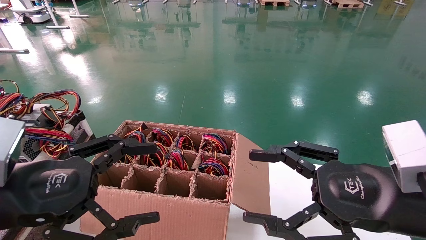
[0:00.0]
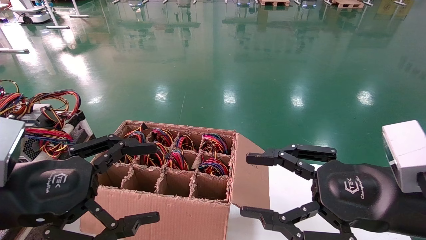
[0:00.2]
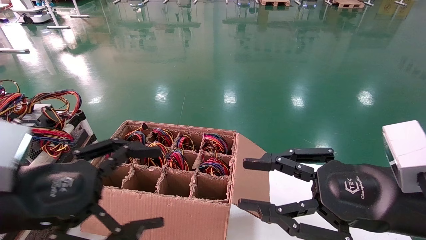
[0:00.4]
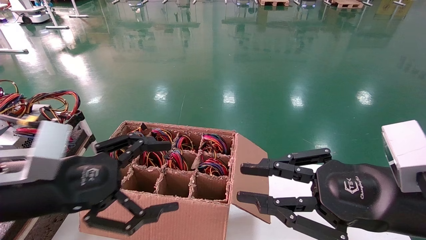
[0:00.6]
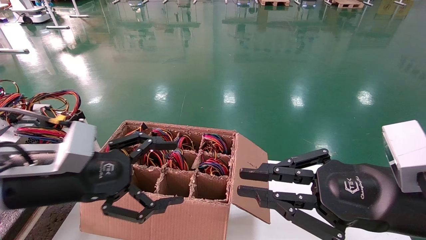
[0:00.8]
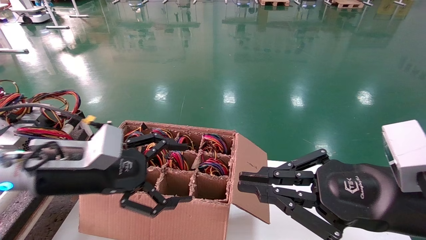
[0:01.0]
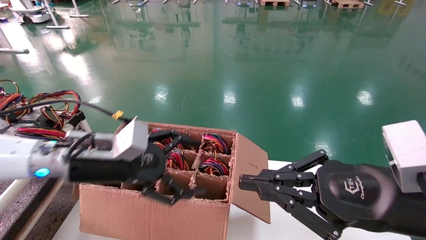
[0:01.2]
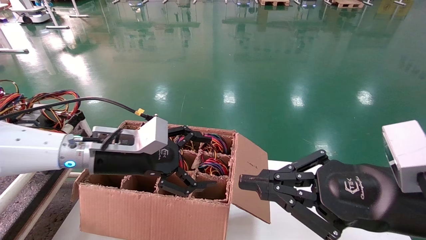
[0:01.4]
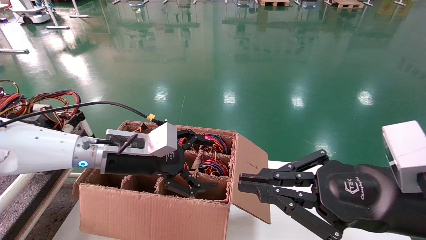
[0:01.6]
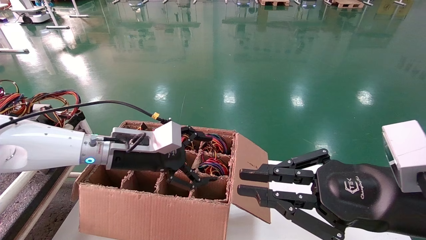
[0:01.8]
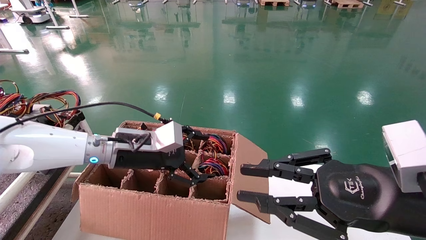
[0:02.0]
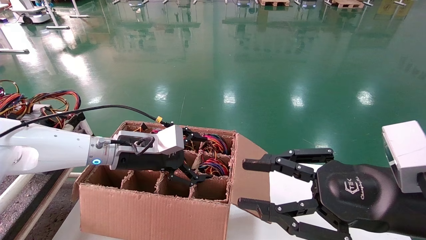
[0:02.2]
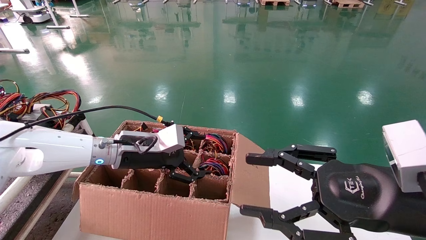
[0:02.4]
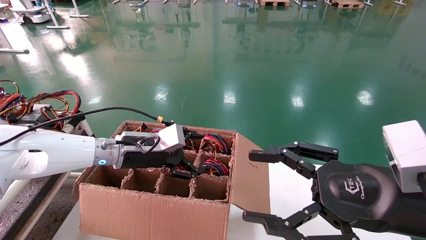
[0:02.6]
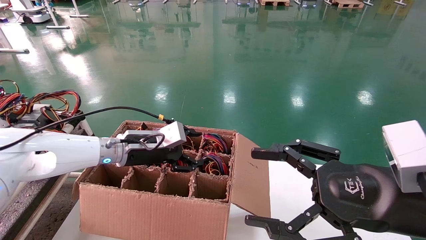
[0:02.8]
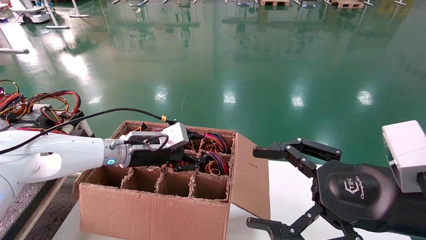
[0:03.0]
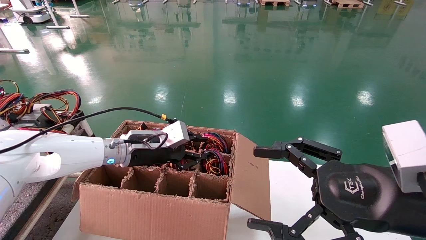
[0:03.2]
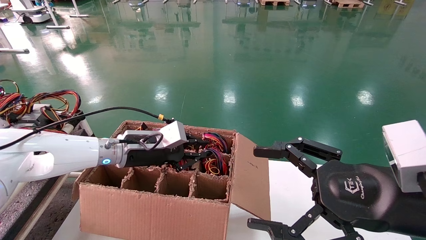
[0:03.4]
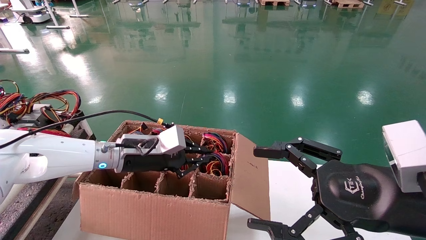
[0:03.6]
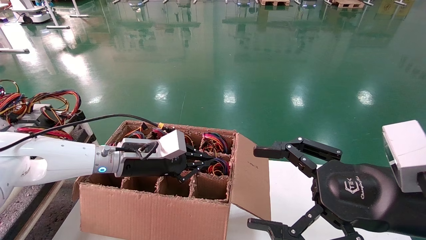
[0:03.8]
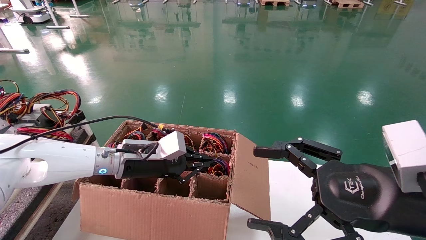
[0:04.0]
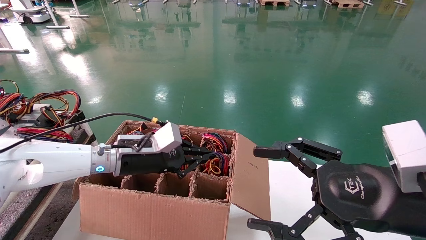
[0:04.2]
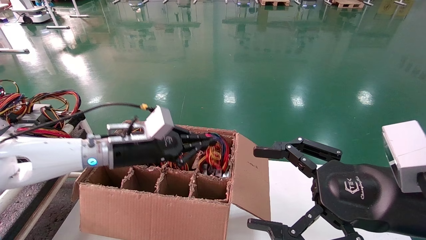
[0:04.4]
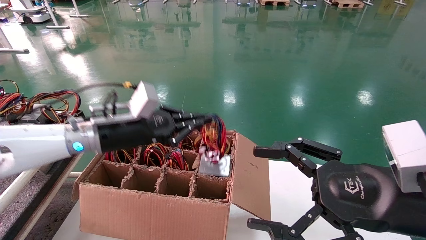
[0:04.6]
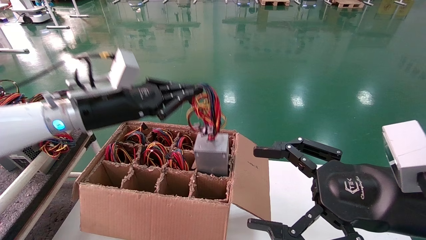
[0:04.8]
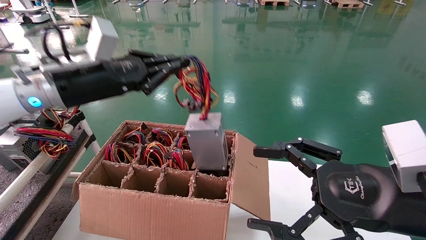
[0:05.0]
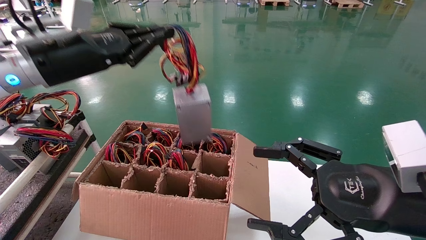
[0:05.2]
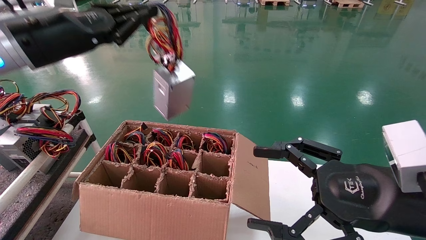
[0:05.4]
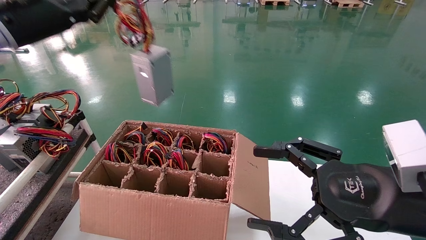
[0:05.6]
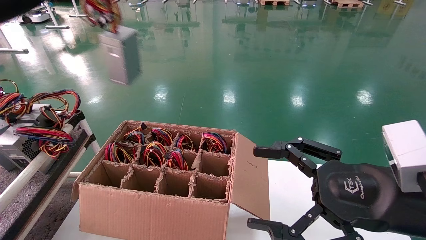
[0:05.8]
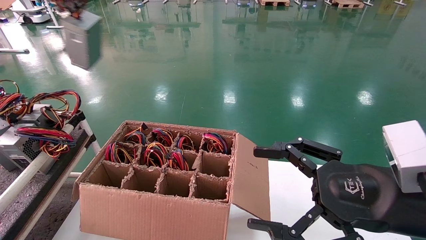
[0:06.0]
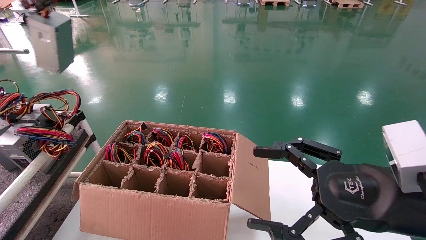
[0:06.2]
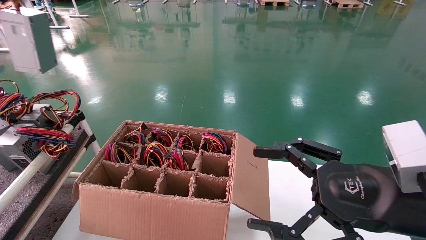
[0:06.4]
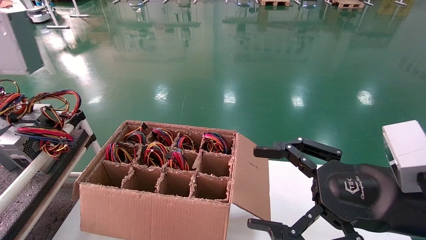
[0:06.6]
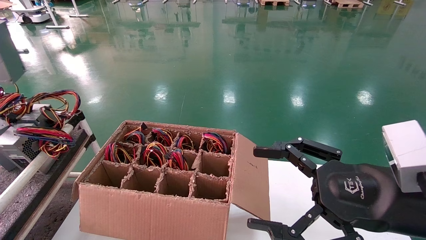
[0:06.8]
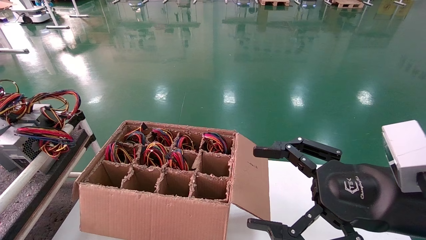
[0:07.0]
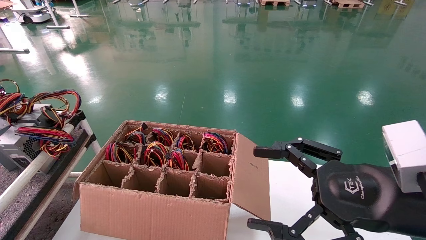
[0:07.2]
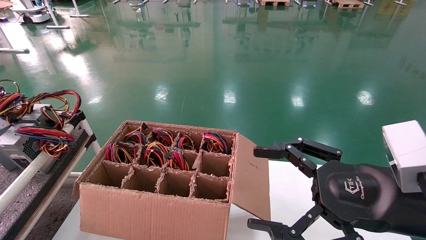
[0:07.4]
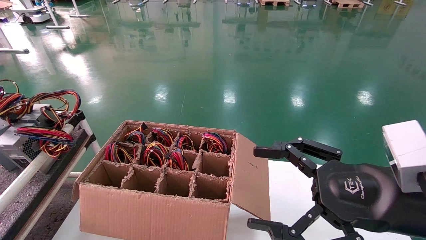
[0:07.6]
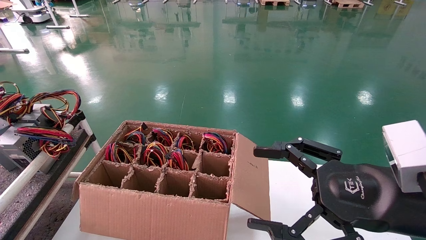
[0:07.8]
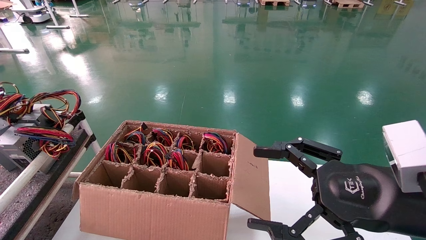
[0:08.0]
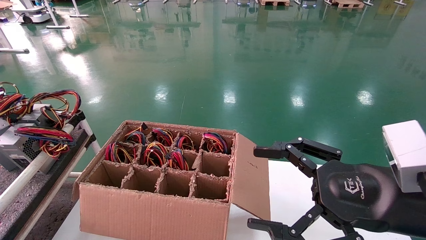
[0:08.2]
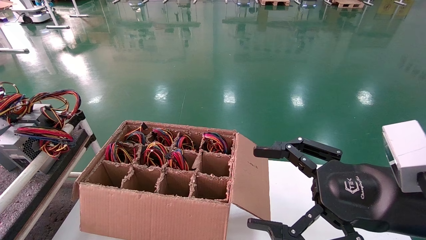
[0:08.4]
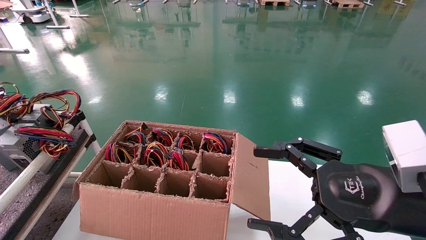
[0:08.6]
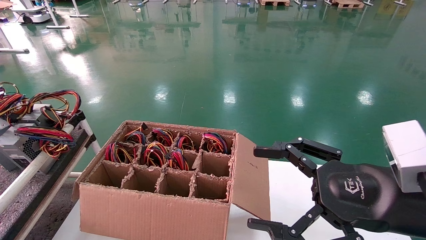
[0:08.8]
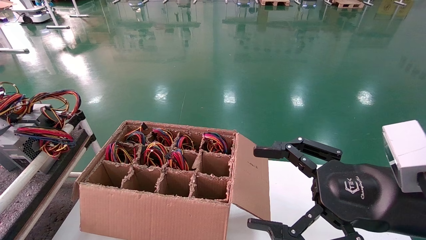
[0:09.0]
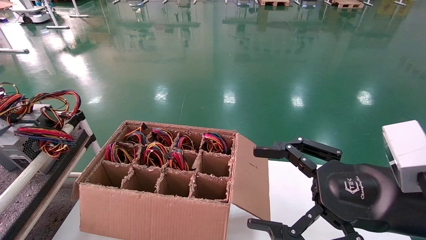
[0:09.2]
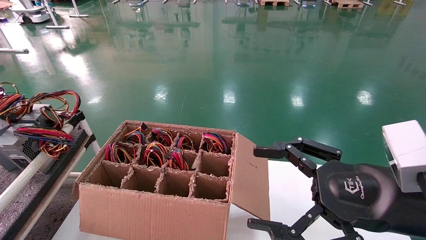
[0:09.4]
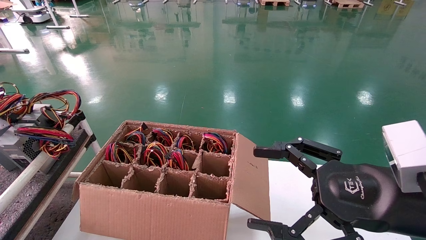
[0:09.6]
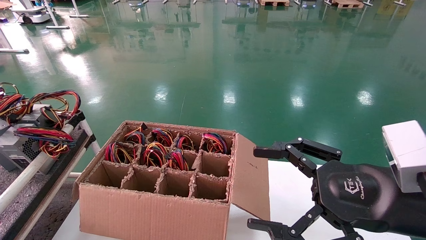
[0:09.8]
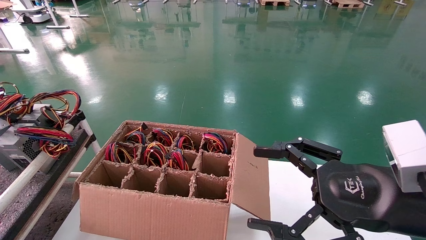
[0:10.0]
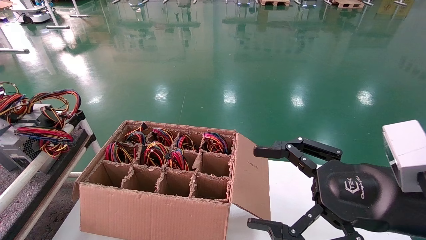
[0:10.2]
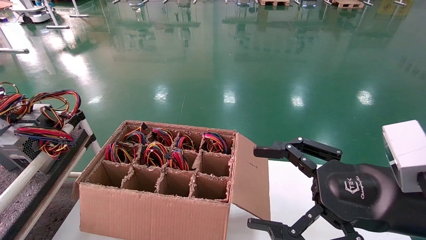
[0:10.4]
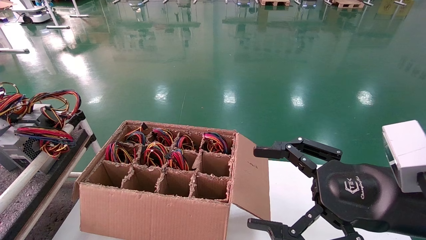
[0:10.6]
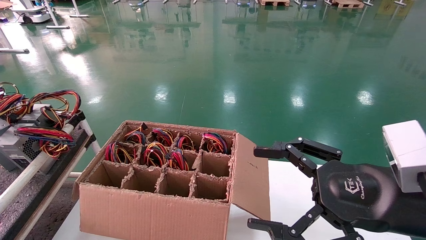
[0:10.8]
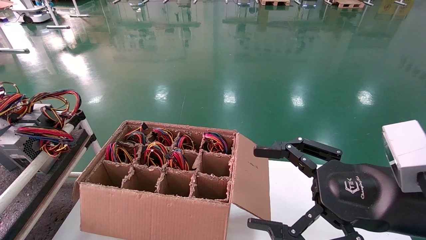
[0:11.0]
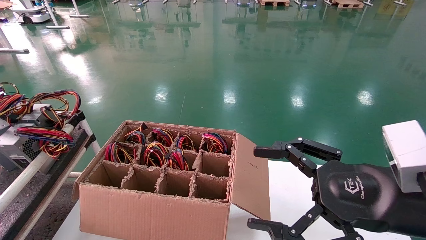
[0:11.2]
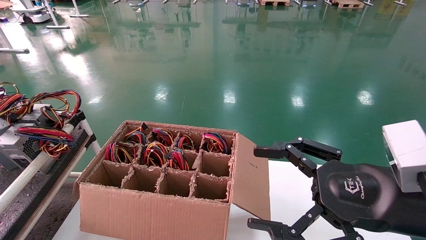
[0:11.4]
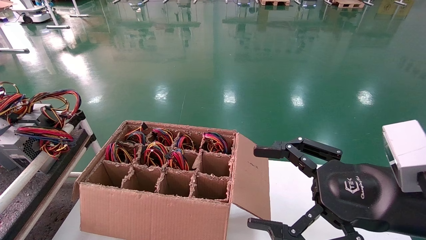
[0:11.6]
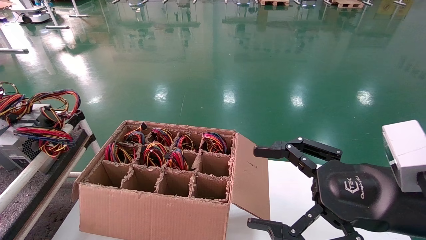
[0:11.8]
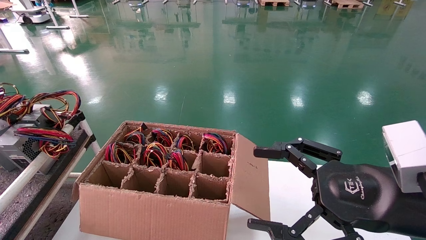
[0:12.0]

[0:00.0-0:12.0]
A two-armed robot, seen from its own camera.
Step, 0:00.6 to 0:03.8: Grab and lift the power supply from the large box.
0:00.0 to 0:01.6: The right gripper closes up; the left gripper moves forward and to the right, roughly 20 cm.
0:01.6 to 0:03.0: The left gripper is displaced forward by approximately 5 cm; the right gripper opens its fingers.
0:03.0 to 0:04.4: The left gripper changes place by some 5 cm, and closes its fingers.
0:04.4 to 0:06.0: The left gripper moves upward and to the left, roughly 35 cm.
0:06.0 to 0:07.6: The left gripper is displaced to the left and backward by approximately 20 cm.

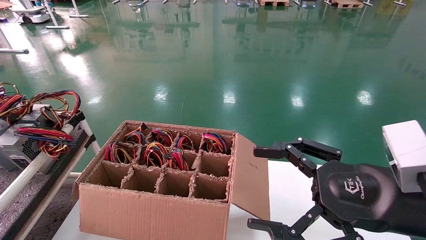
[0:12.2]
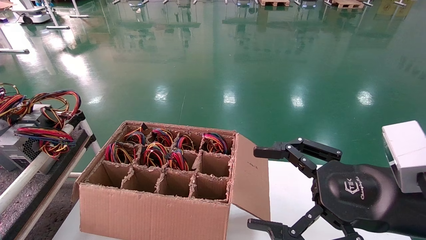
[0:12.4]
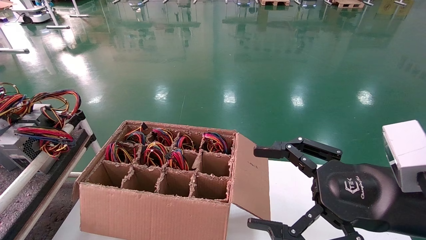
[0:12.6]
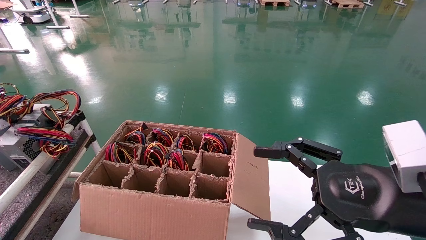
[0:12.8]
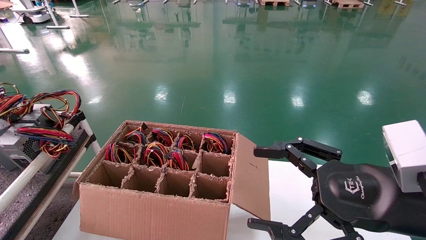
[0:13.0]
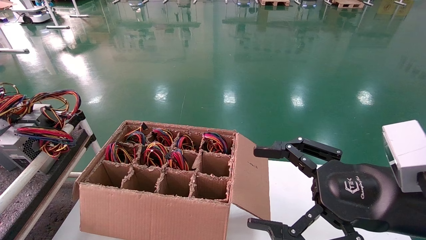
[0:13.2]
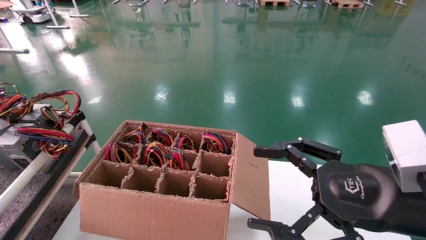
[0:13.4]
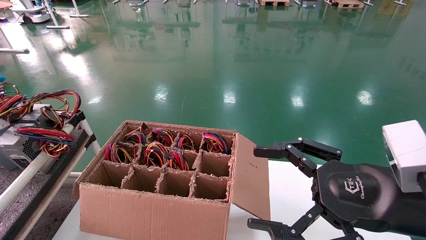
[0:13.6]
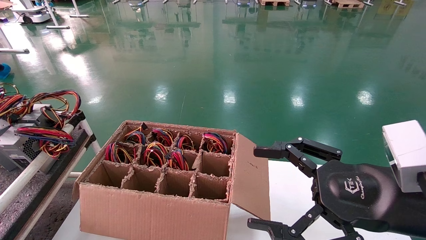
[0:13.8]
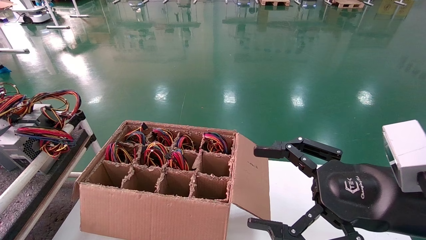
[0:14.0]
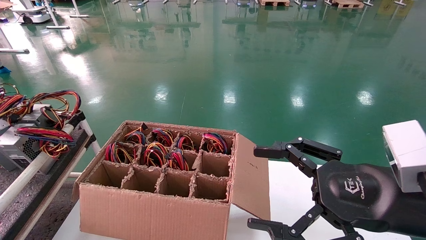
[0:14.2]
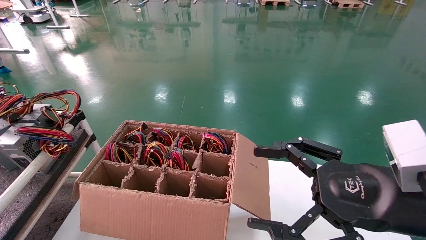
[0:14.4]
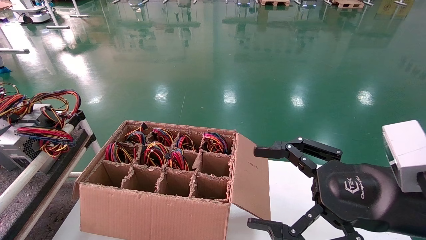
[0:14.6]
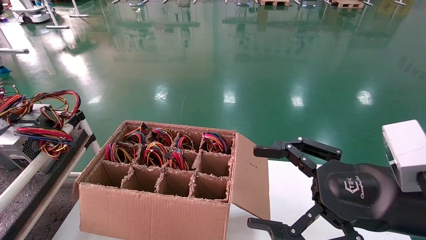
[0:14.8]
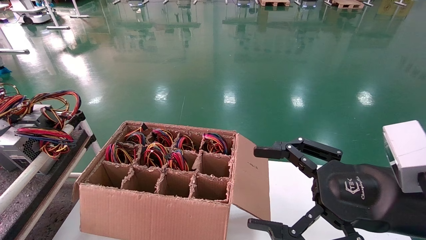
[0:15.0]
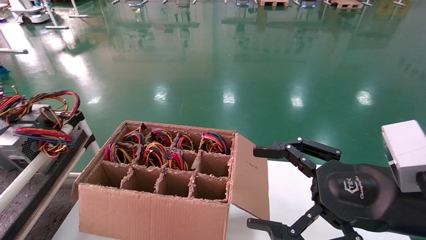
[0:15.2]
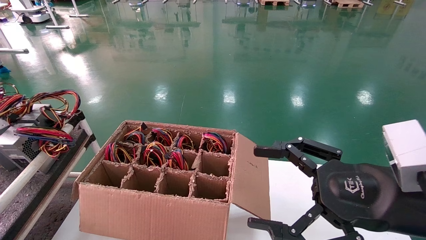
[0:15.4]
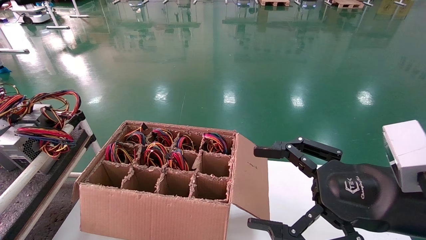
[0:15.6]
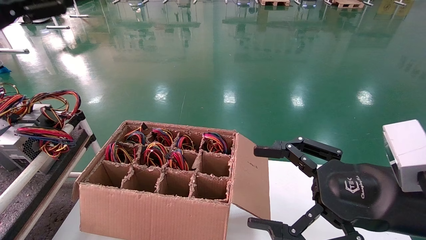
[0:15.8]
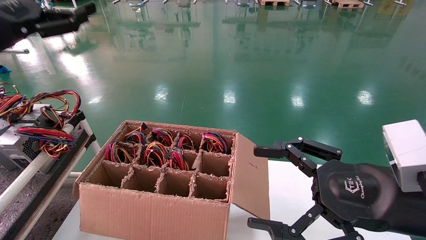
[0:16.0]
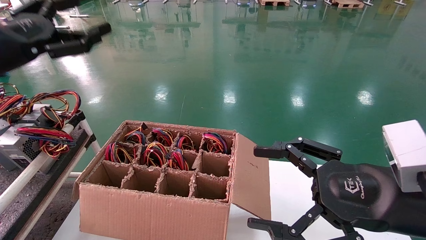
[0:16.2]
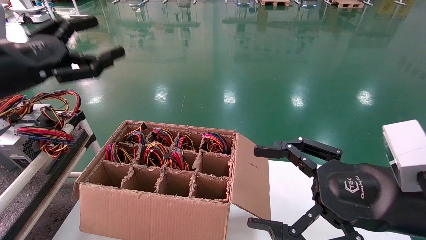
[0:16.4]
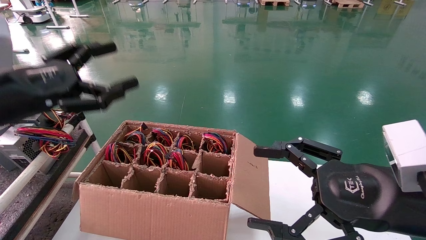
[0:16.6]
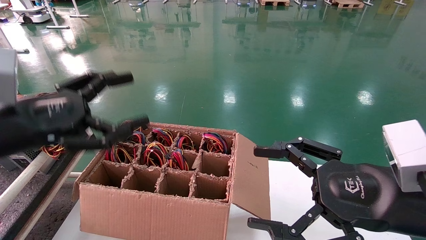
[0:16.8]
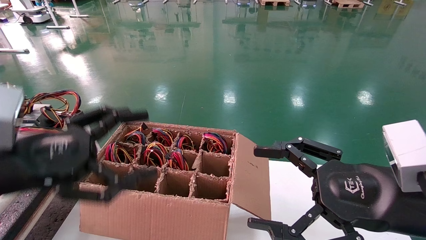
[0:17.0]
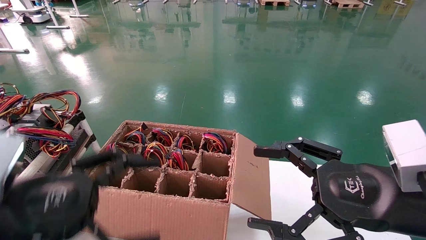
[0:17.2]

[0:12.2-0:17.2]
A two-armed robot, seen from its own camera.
0:15.6 to 0:17.2: The left gripper is displaced downward, backward and to the right by about 30 cm.
